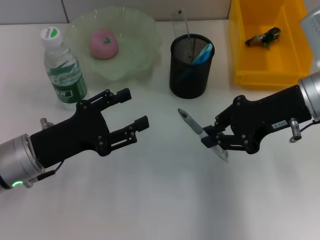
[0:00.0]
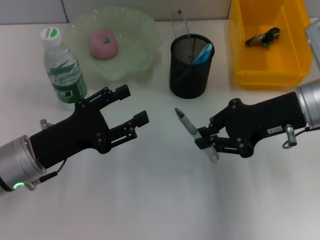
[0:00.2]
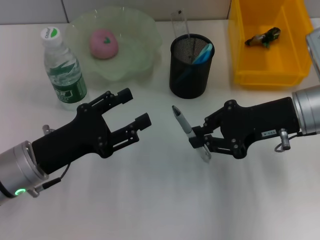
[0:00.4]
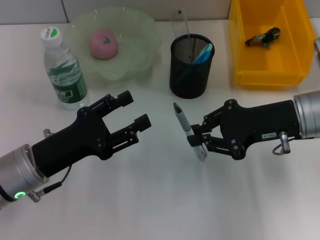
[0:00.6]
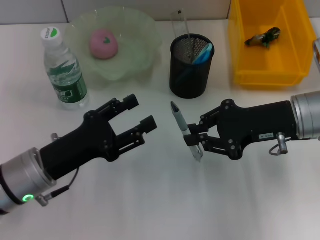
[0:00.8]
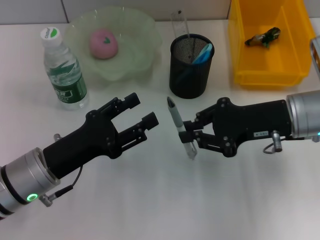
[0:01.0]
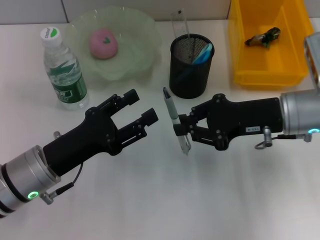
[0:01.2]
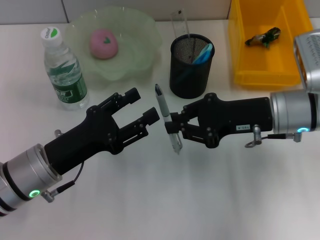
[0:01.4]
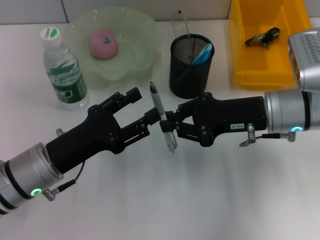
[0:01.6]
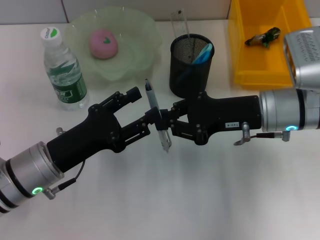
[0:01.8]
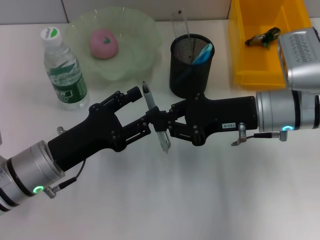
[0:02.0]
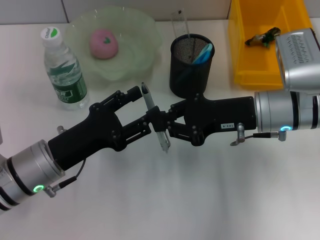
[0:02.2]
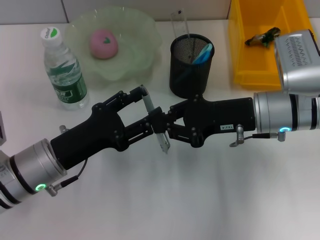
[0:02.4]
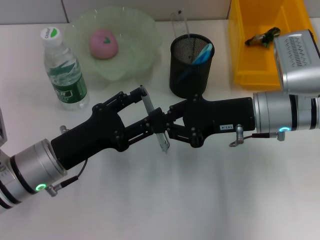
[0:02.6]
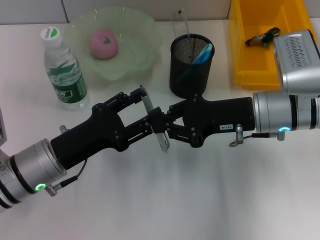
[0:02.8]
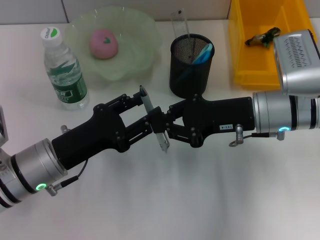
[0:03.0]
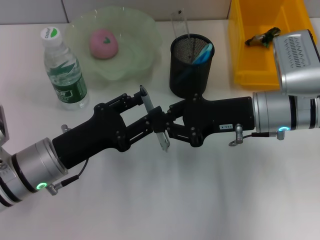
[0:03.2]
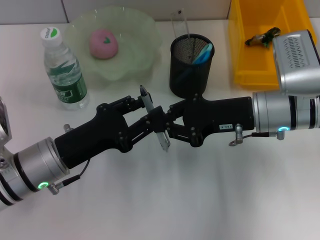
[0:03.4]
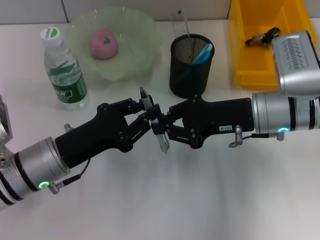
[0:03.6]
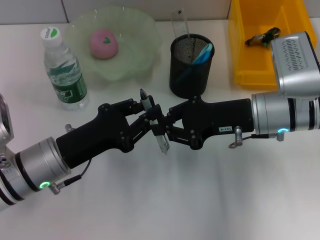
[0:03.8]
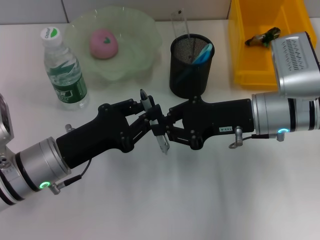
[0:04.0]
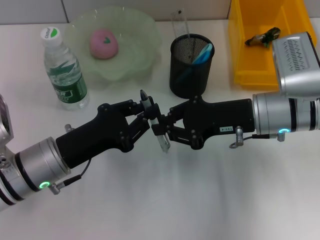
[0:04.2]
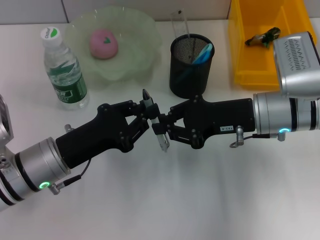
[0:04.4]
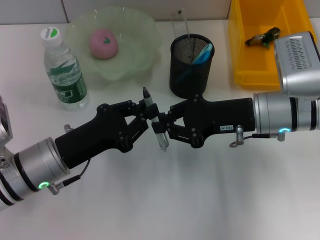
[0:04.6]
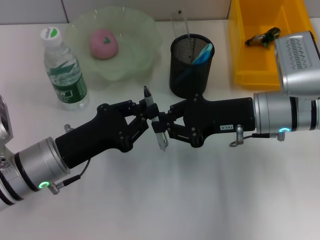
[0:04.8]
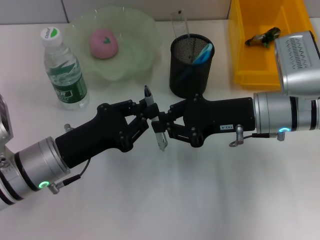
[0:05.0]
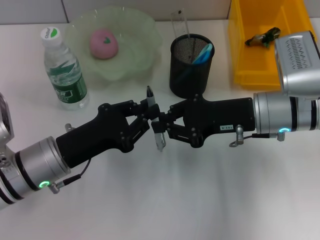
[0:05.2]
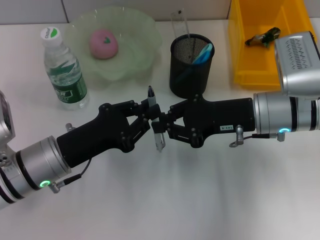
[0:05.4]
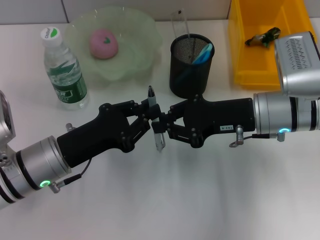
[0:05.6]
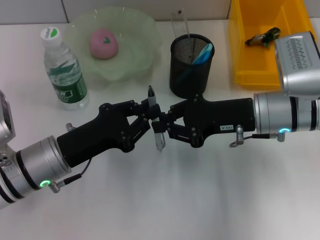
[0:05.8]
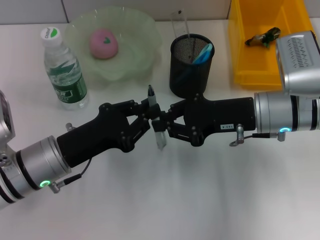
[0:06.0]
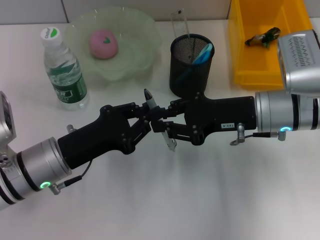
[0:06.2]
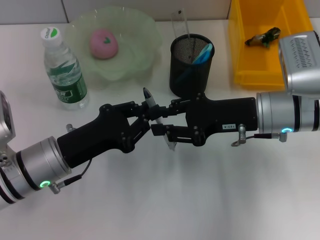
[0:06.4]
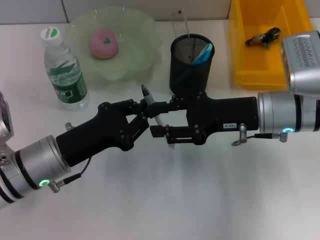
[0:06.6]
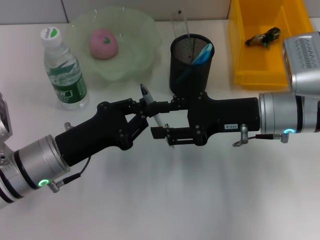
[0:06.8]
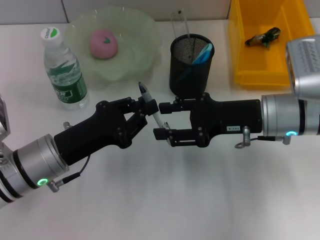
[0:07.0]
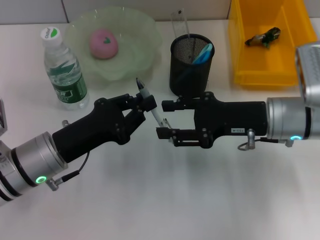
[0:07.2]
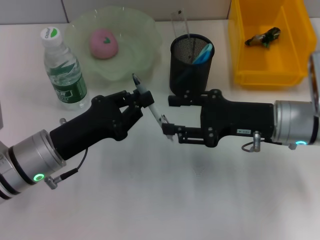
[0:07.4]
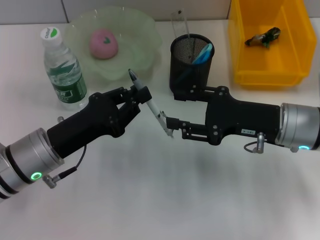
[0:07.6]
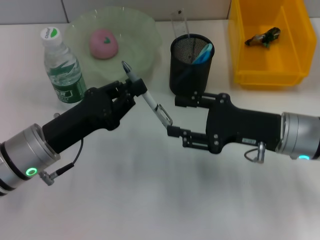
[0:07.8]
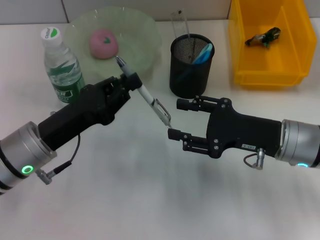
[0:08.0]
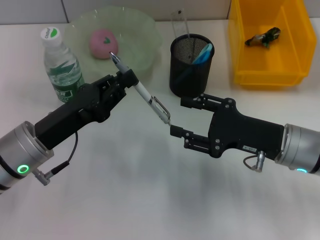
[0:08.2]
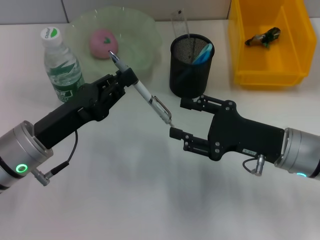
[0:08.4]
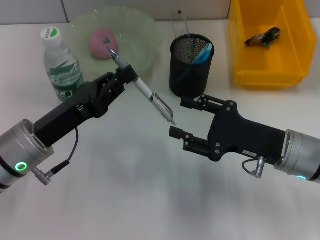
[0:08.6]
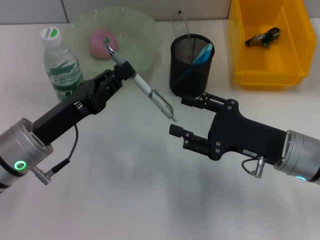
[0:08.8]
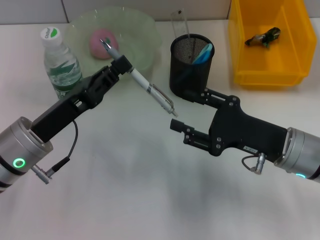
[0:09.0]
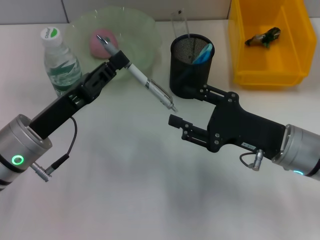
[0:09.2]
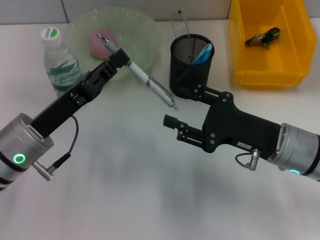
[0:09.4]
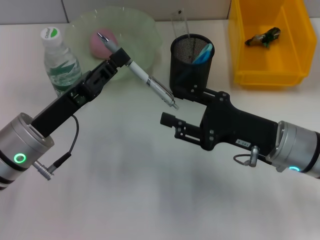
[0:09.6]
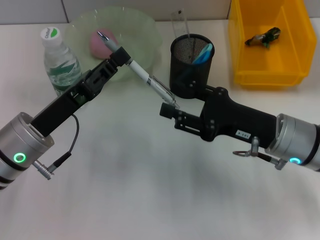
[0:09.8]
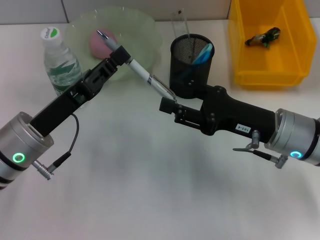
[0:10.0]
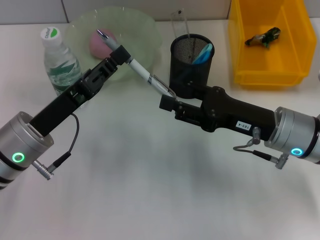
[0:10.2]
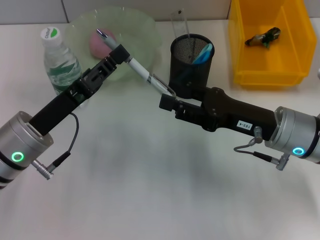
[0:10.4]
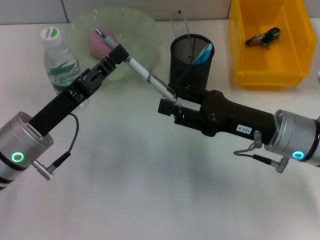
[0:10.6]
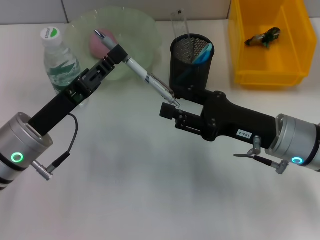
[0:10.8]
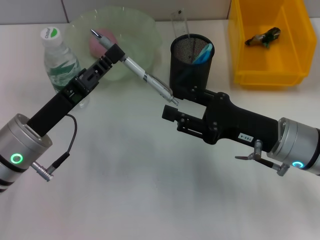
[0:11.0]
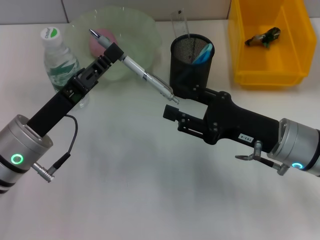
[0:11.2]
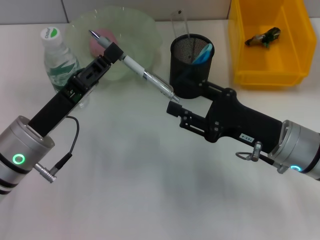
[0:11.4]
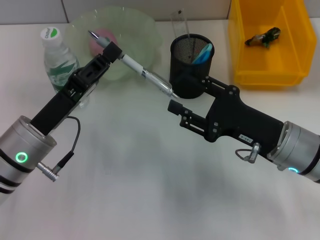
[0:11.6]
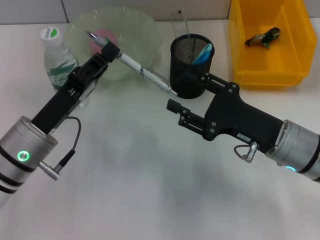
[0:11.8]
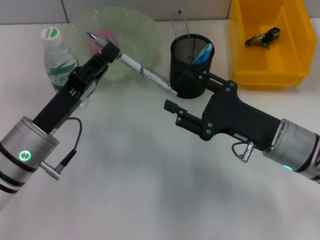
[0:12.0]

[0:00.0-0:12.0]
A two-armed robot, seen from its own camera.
Step, 0:00.0 to 0:06.2: Pass the gray spring-action pen from the right hand to the left hand.
0:00.0 to 0:01.6: The right gripper moves downward, roughly 5 cm.
0:01.6 to 0:03.0: The two grippers keep their place.
0:03.0 to 0:04.4: The left gripper closes its fingers.
0:04.4 to 0:06.0: Both grippers stay put.
0:06.0 to 0:07.6: The right gripper opens.

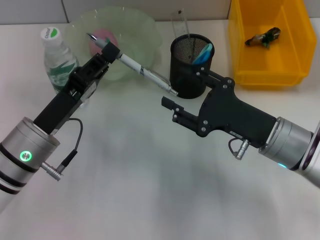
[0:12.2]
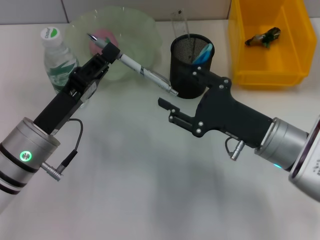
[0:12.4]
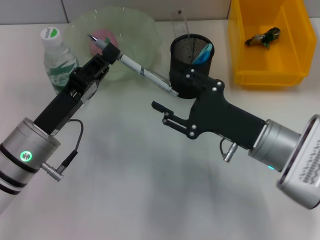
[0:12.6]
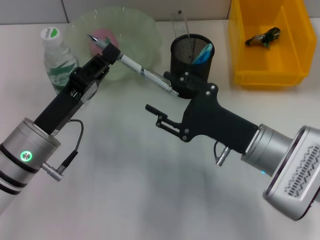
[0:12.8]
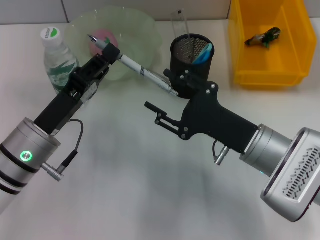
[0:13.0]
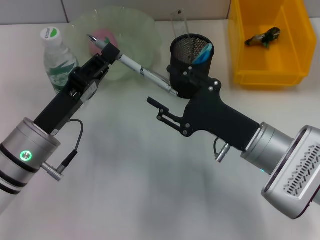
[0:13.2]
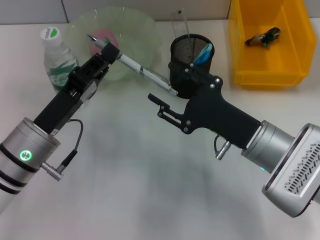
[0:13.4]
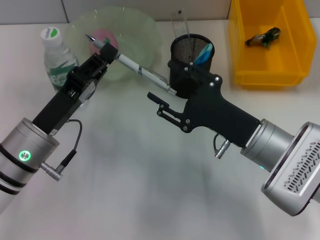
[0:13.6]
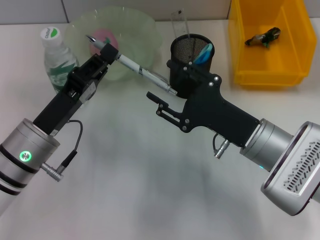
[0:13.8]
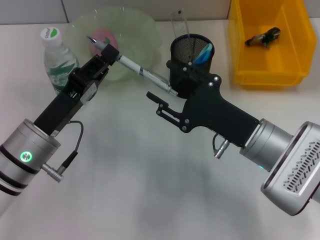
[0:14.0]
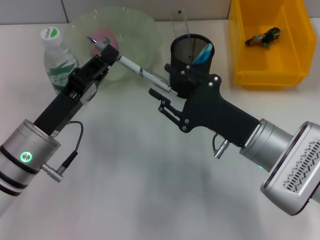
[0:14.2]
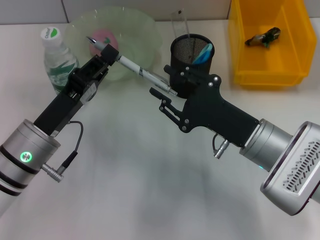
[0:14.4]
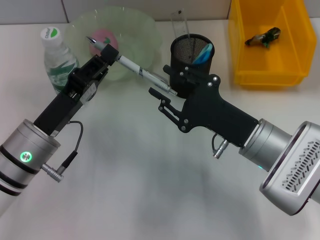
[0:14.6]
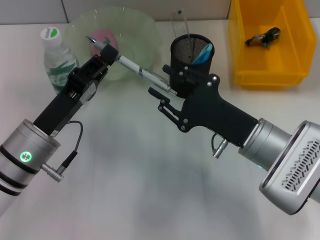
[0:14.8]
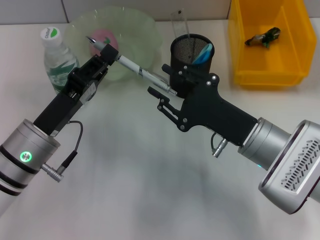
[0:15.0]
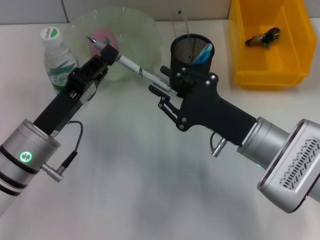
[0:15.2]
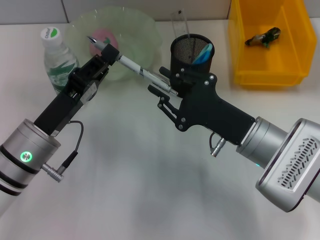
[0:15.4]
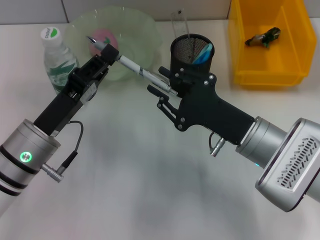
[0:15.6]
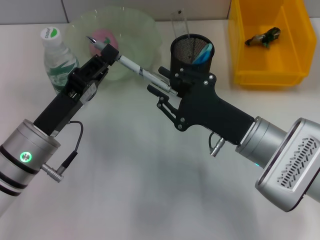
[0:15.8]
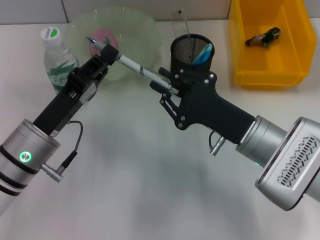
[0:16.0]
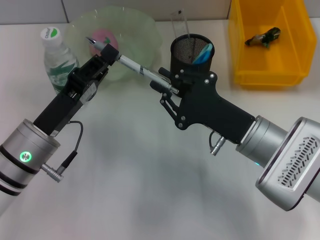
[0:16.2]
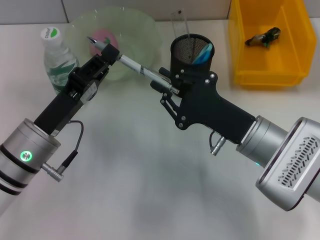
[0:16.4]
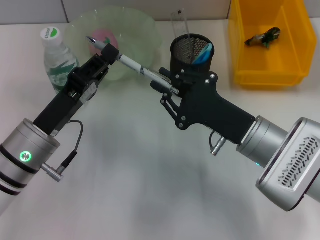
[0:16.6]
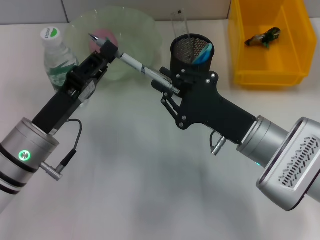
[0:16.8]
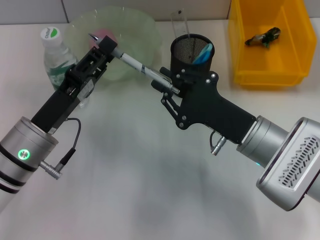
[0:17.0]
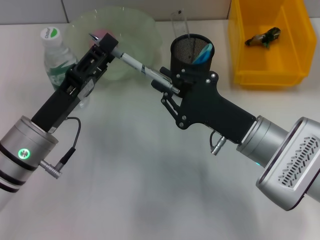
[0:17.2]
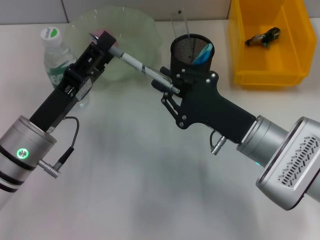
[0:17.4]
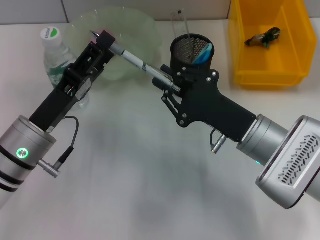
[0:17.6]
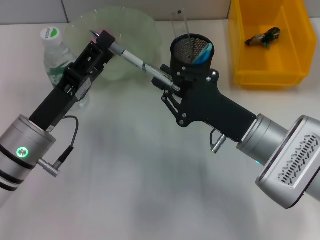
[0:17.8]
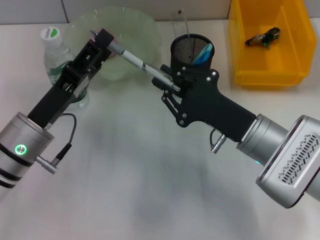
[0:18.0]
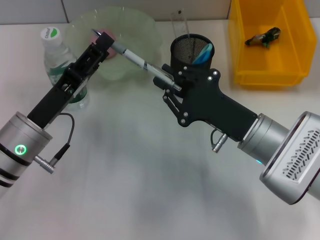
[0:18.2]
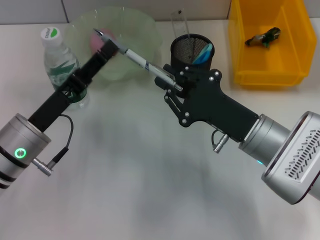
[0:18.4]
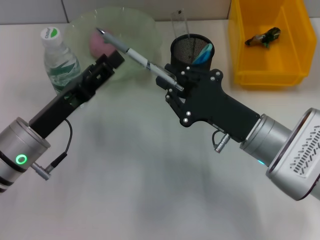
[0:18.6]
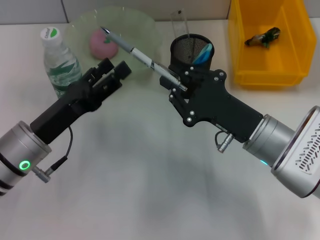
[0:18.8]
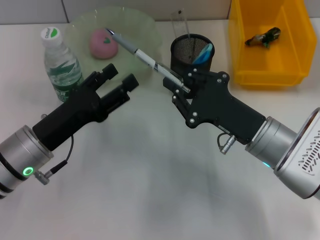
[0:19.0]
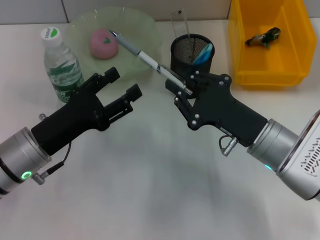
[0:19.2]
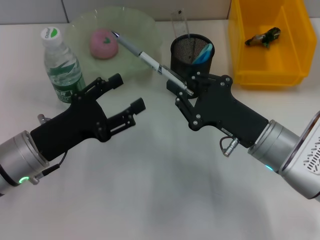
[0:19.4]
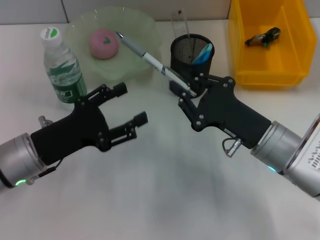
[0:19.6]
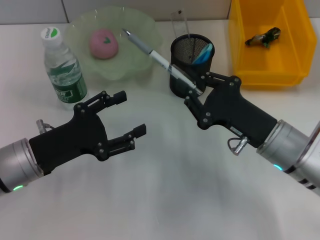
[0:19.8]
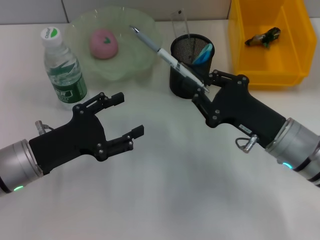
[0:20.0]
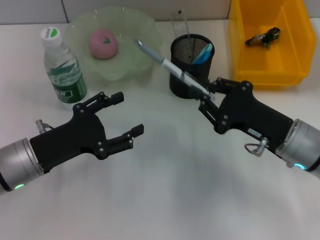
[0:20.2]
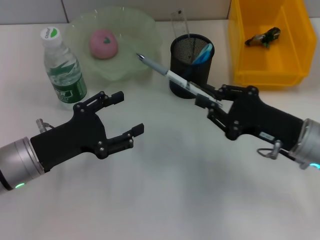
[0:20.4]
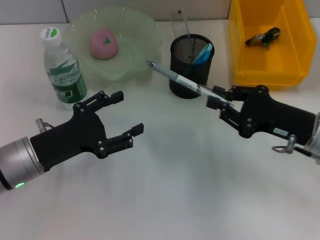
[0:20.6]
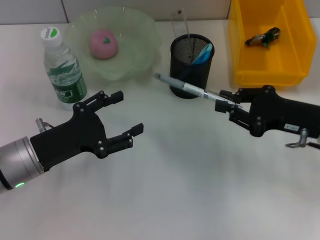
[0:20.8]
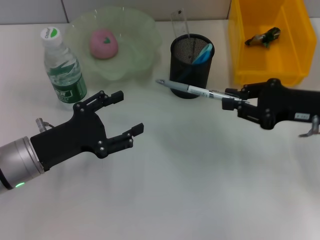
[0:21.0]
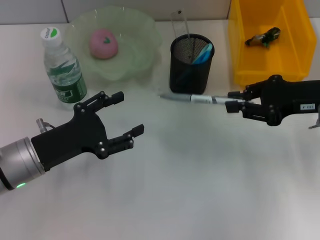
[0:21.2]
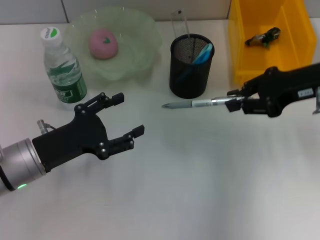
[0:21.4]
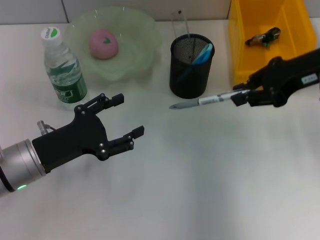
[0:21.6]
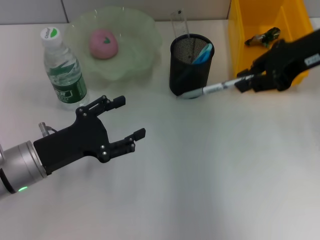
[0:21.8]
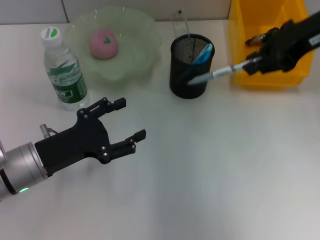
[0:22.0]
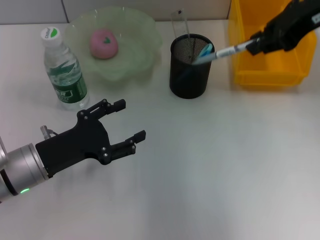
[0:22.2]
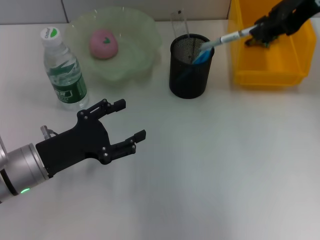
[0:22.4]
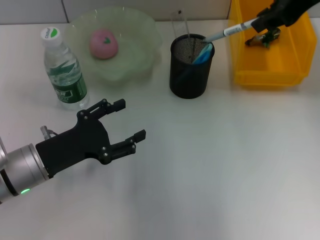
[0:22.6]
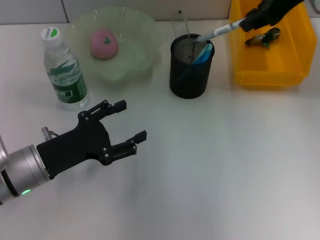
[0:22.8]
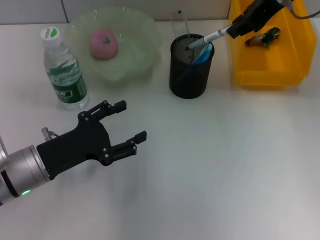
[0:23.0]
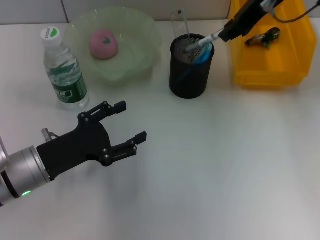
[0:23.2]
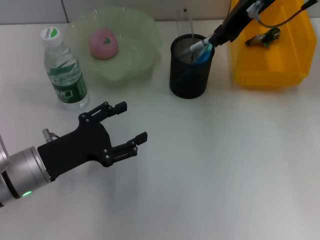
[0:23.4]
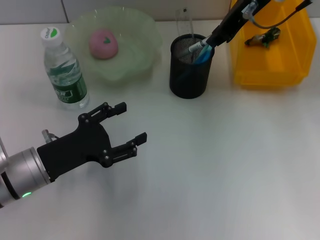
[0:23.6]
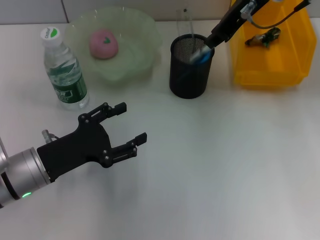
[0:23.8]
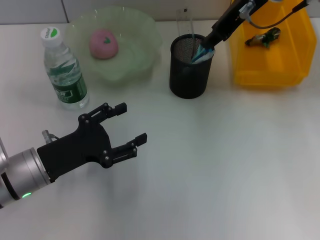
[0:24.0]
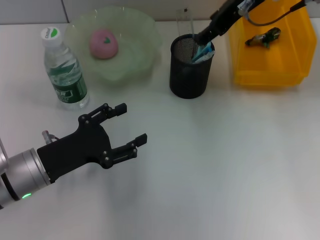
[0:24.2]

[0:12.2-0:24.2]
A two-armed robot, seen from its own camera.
Step, 0:12.2 to 0:17.0: Pass the gray spring-action pen from the left hand to the right hand.
Step, 0:17.2 to 0:24.2: Place the gray spring-action pen into the pen holder with the right hand.
0:12.2 to 0:13.8: The grippers make only small movements.
0:13.8 to 0:15.2: The right gripper closes.
0:15.2 to 0:16.6: Both grippers stay put.
0:16.6 to 0:18.2: The left gripper opens up.
0:19.8 to 0:21.2: The right gripper goes approximately 15 cm to the right, upward and forward.
0:21.2 to 0:22.6: The right gripper is displaced upward and forward by about 20 cm.
0:22.6 to 0:24.2: The right gripper moves to the left, approximately 10 cm, and opens.
